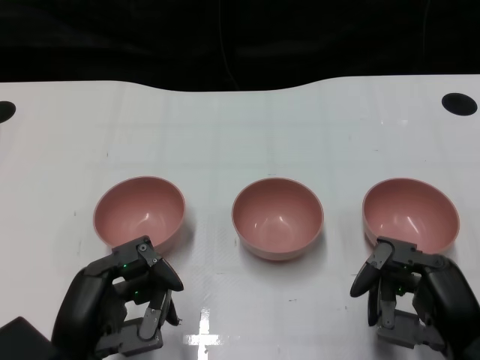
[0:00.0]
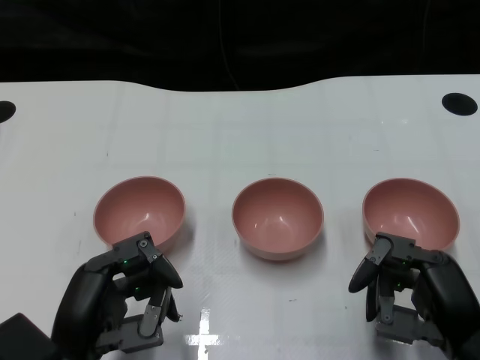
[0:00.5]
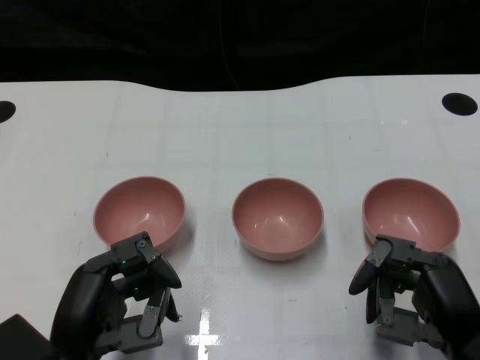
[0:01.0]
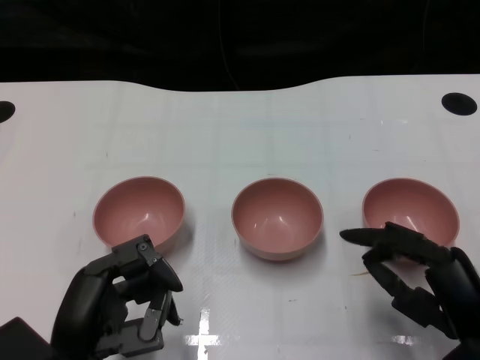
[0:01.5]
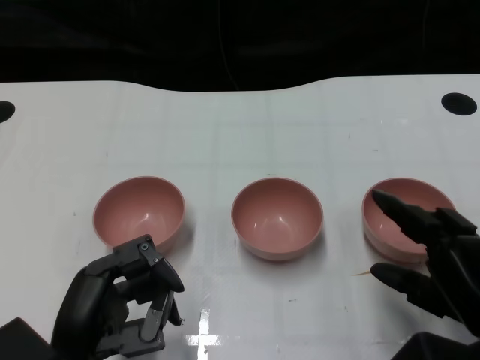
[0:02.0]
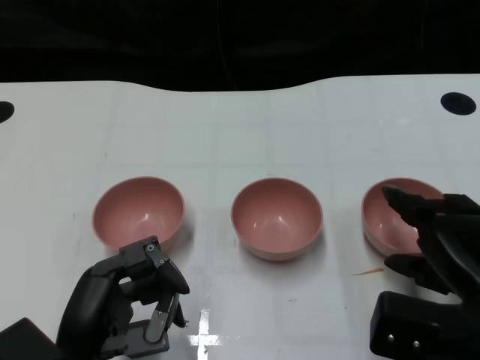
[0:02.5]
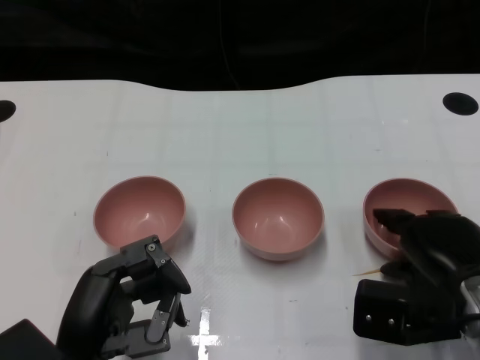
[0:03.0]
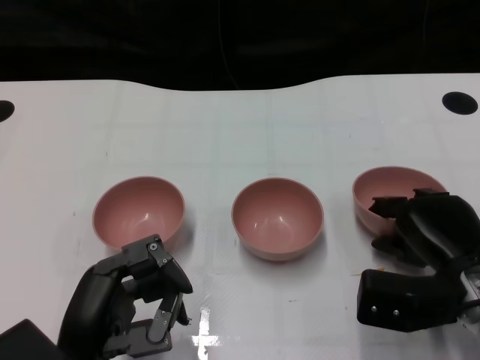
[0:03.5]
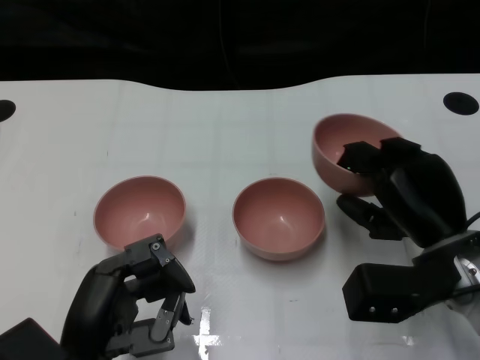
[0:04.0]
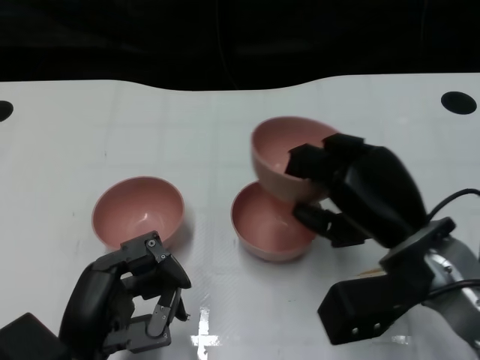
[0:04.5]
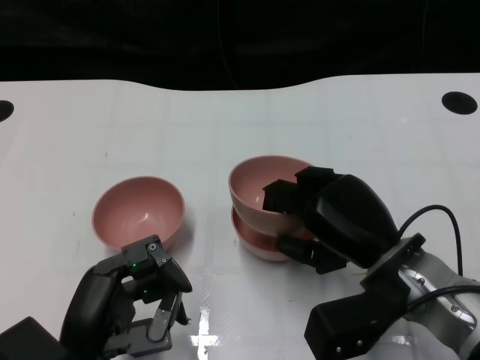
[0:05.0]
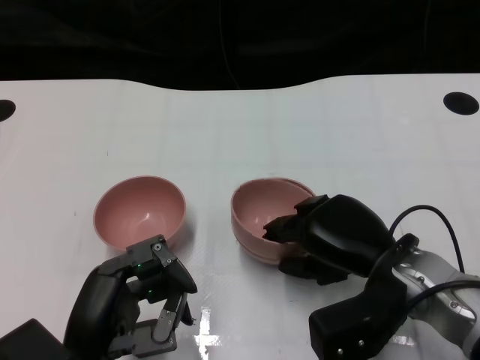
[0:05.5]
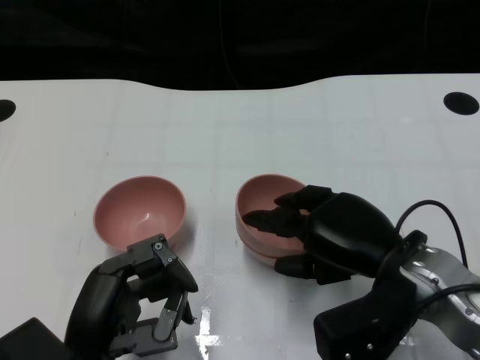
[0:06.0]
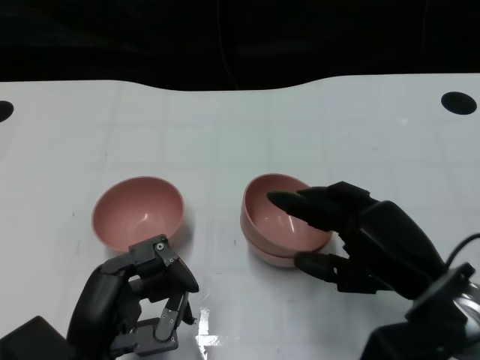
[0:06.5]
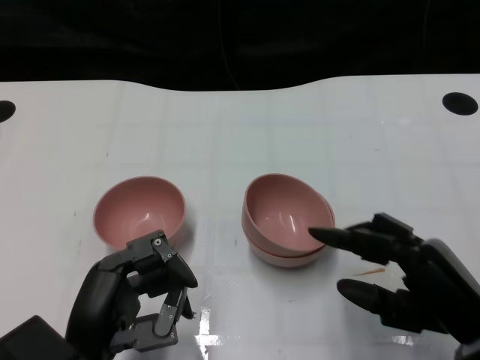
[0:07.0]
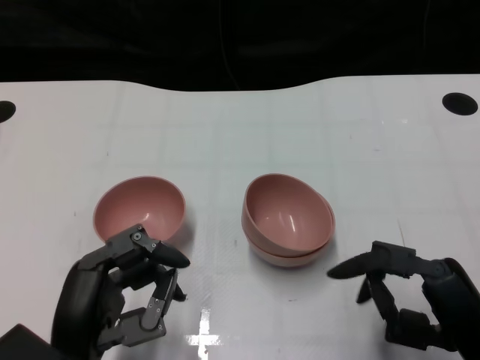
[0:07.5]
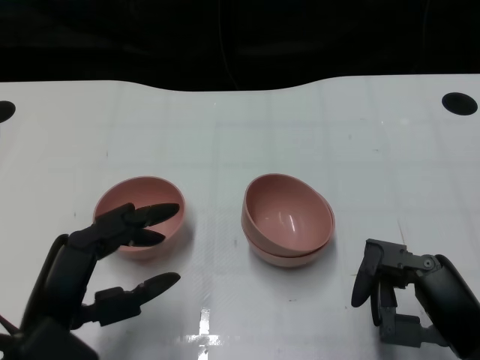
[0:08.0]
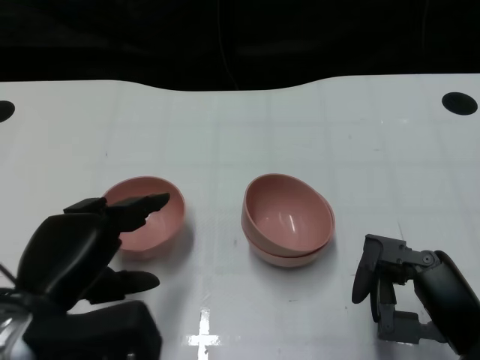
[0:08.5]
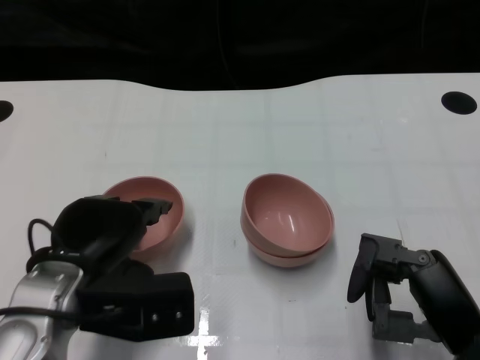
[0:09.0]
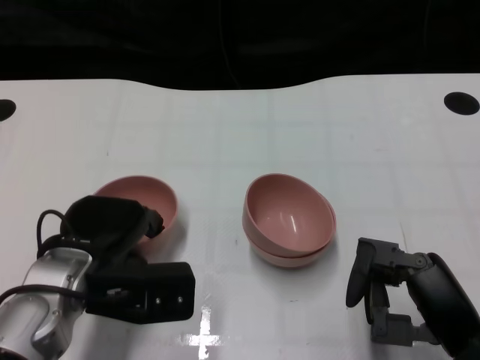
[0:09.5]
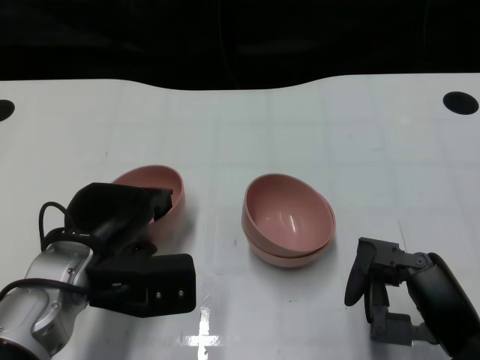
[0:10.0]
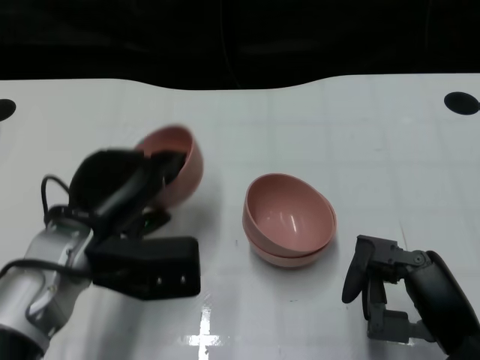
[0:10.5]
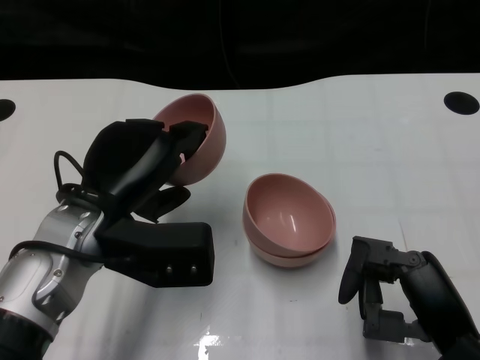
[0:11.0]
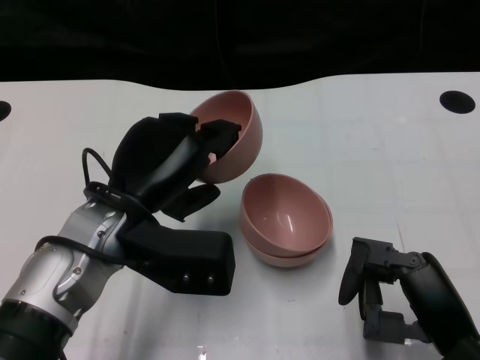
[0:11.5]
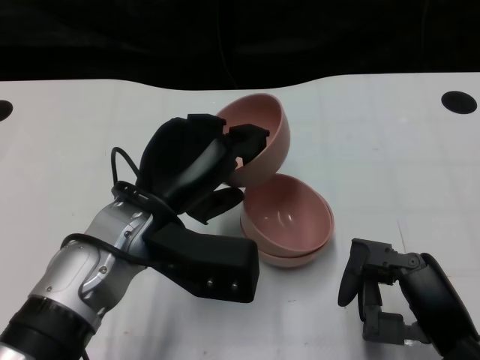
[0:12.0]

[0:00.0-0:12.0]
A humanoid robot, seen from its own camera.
Task of the whole recording: Pick up the bowl on one side of the table and place it on top of the middle bowl, then pick up the bowl on the other side of the table and place it on top of the middle bowls.
Step, 0:01.5 to 0:03.0: Grasp the bowl on the right with the right gripper.
Step, 0:04.0 to 0:06.5: Place the bowl on the right onto the bowl in the middle with right gripper.
Step, 0:07.0 to 0:09.5: Grasp the bowl on the left with the left gripper.
0:02.0 to 0:04.0: The right hand shifts roughly 10 cm forward.
0:06.0 to 0:08.0: The right hand moves backward and to the right, approximately 10 cm.
0:08.0 to 0:10.0: The left hand shifts approximately 10 cm forward.
0:10.0 to 0:12.0: The left hand travels to the right and upward by some 10 cm.

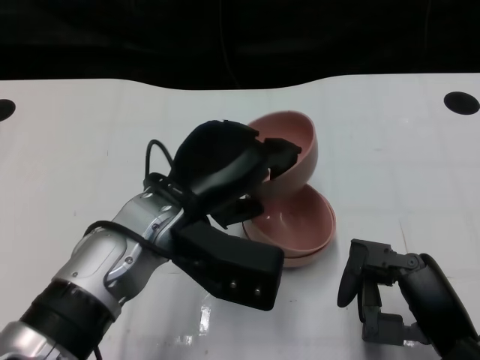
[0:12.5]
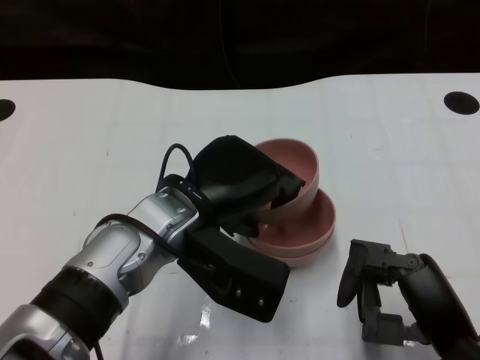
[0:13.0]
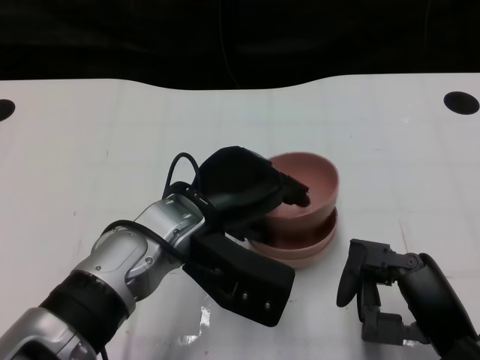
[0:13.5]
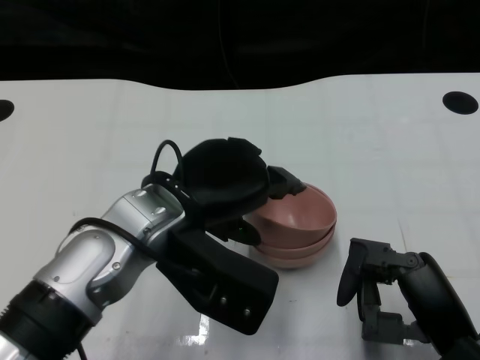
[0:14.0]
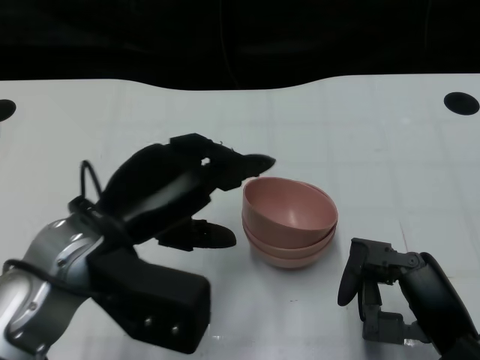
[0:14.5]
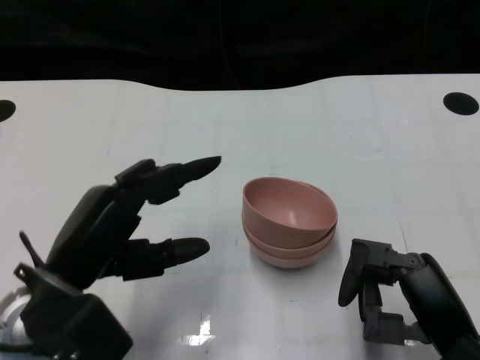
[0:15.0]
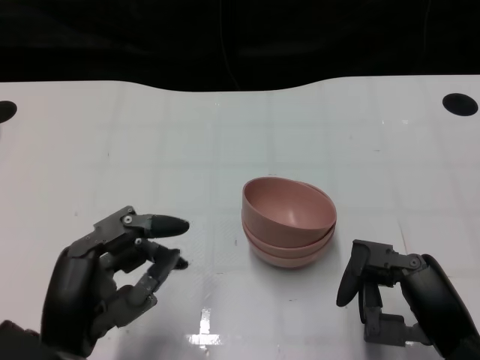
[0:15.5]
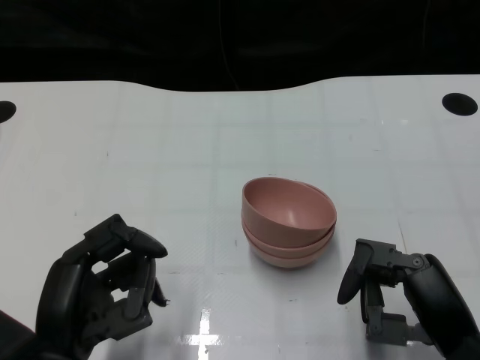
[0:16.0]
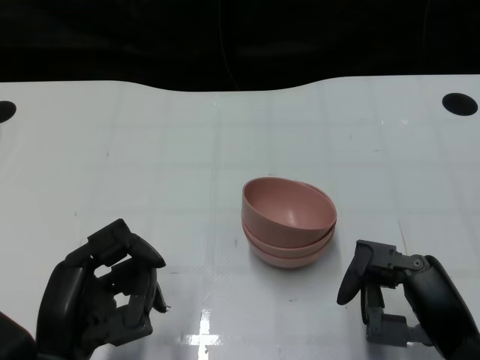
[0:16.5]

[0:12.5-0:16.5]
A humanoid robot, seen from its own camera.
Task of the whole recording: Pick up the bowl on one side of the table and place it on top of the middle bowl, then pick up the bowl on the other side of the table and place it on top of the middle bowls.
Step, 0:12.5 to 0:14.5: Place the bowl on the left onto the bowl in the middle with left gripper.
0:12.5 to 0:14.5: The left hand goes roughly 5 cm to the left.
0:14.5 to 0:16.5: The left hand travels downward and backward by some 10 cm.
